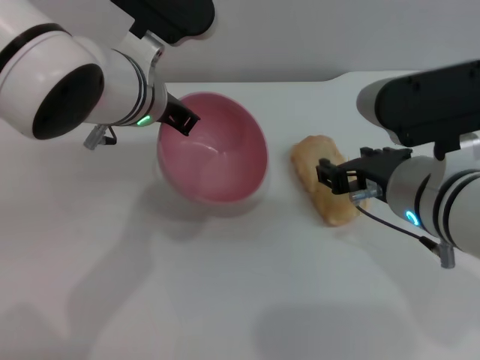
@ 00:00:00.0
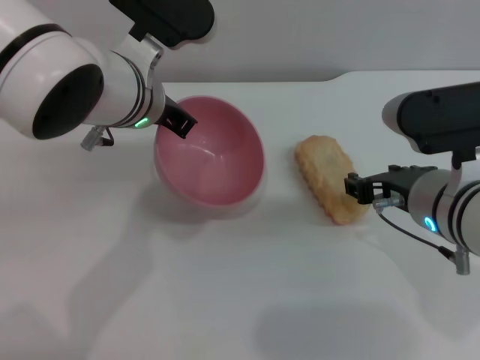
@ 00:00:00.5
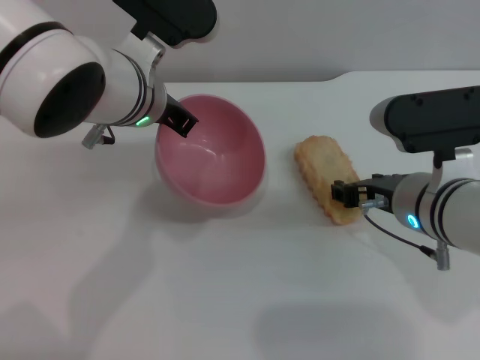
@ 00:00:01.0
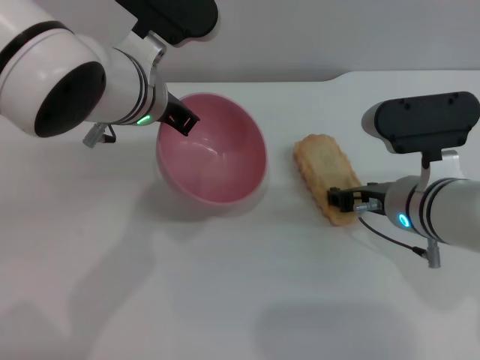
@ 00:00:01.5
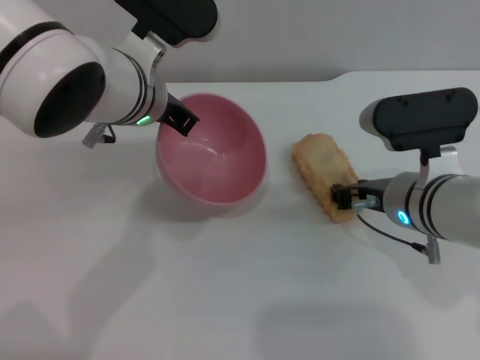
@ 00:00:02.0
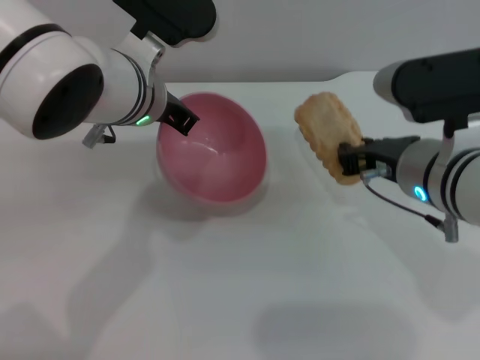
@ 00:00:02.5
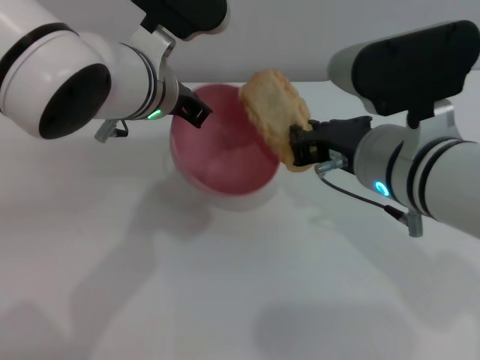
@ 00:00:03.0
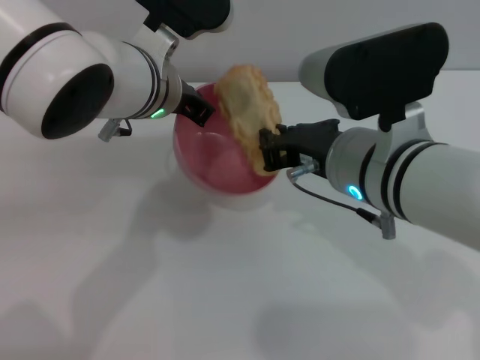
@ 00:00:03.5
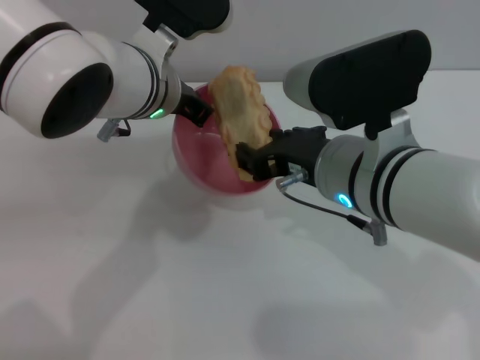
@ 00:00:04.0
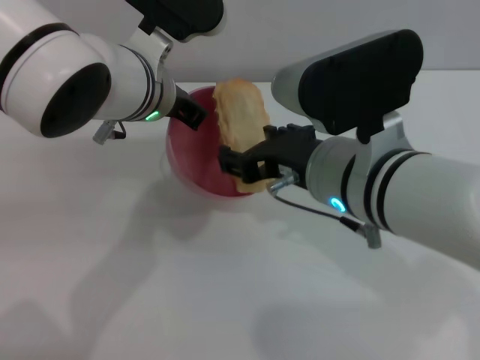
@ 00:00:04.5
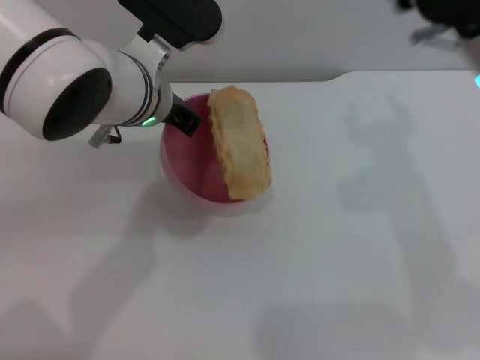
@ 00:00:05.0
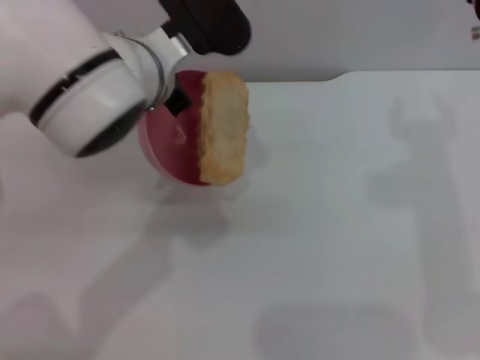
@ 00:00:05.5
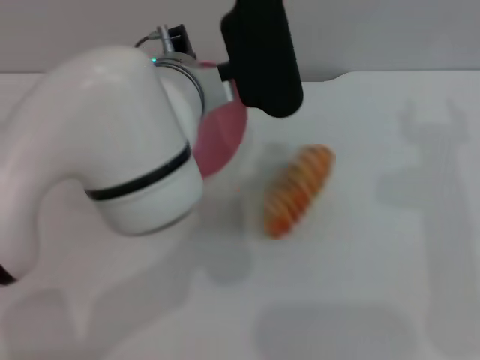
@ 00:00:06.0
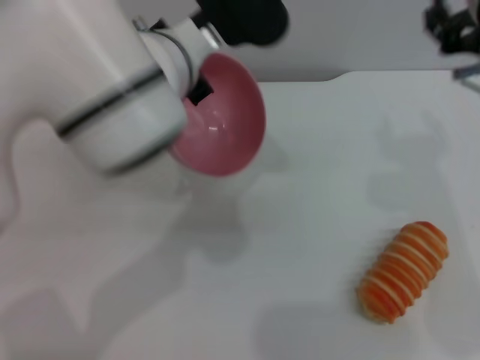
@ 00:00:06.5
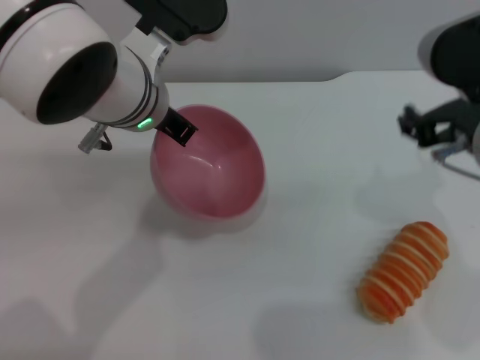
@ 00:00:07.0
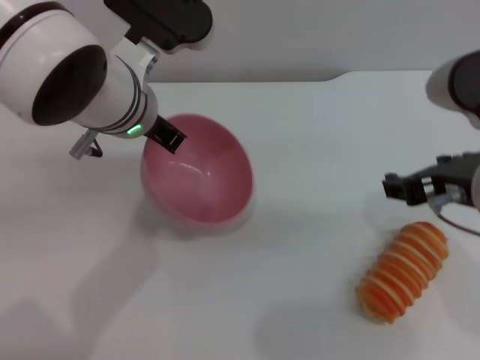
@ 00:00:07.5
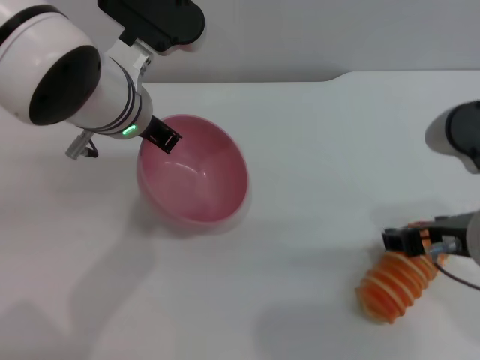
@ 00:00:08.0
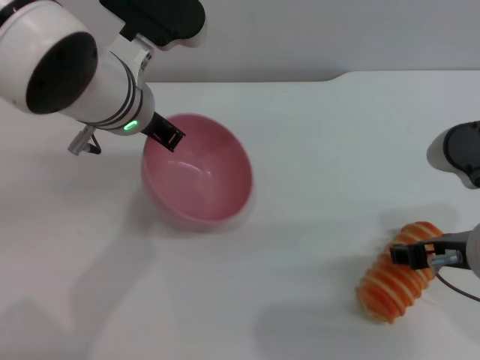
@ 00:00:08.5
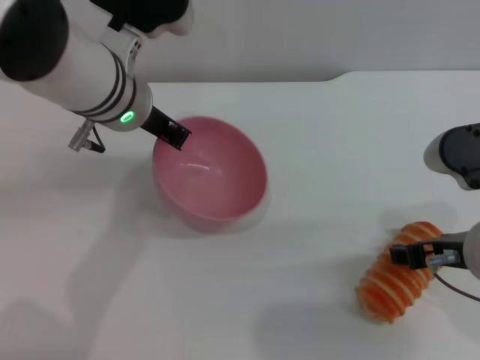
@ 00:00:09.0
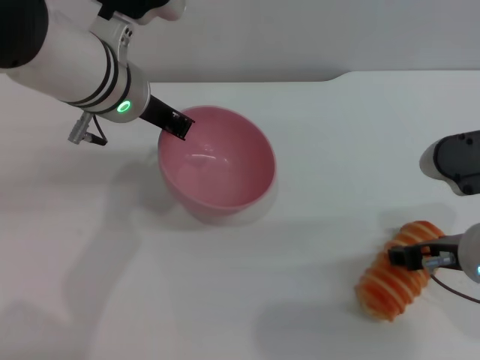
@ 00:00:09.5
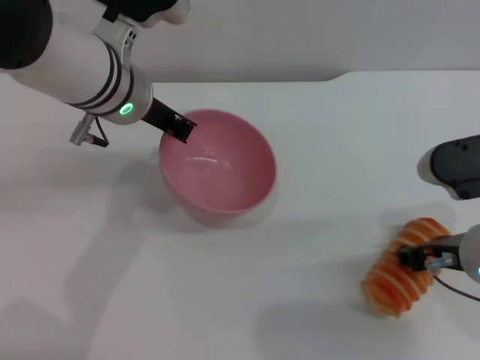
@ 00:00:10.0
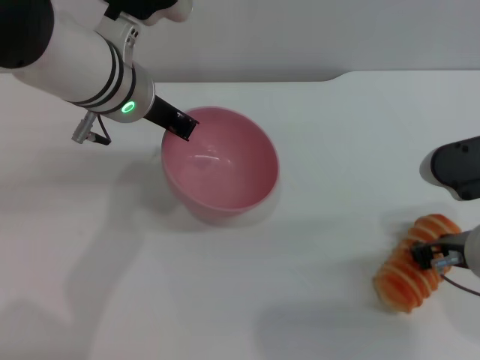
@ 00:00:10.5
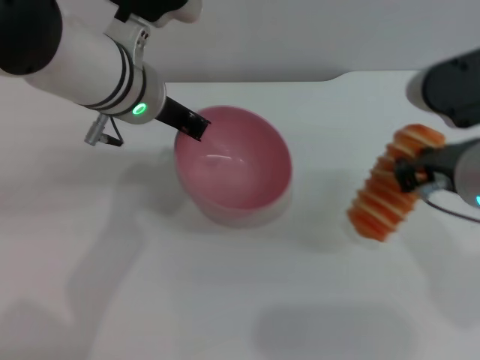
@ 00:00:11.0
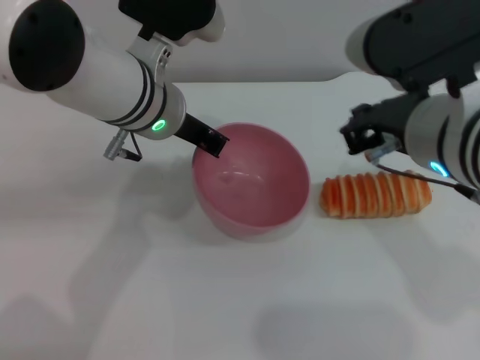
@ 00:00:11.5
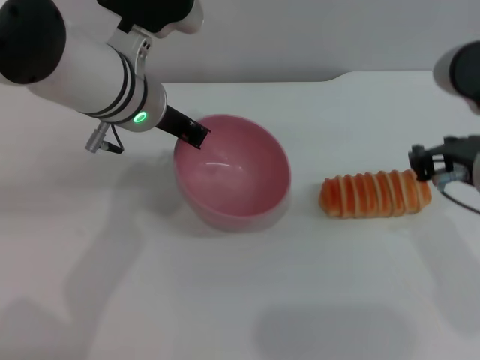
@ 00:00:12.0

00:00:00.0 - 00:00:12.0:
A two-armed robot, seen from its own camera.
Task of the whole recording: put the bread into the pink bowl and pour it out repeatedly.
Step, 00:00:00.0 - 00:00:02.0: Pick up the bread with the right gripper.
Step, 00:00:02.5 - 00:00:04.5: Place the bread into the bowl.
Step, 00:00:05.0 - 00:00:06.0: Pour the bread out of the bowl.
00:00:00.0 - 00:00:02.0: The right gripper moves downward, some 5 cm.
00:00:02.0 - 00:00:04.0: The right gripper shifts about 10 cm upward and to the left.
00:00:04.0 - 00:00:06.0: The right gripper is displaced to the right and upward by some 10 cm, and opens its fingers.
00:00:06.0 - 00:00:08.0: The left gripper travels to the left by some 5 cm; the right gripper travels downward by about 5 cm.
00:00:08.0 - 00:00:10.0: The right gripper travels downward by some 5 cm.
00:00:10.0 - 00:00:12.0: The right gripper is displaced upward by approximately 5 cm, and closes its fingers.

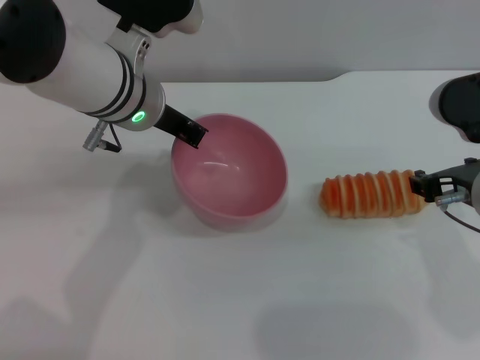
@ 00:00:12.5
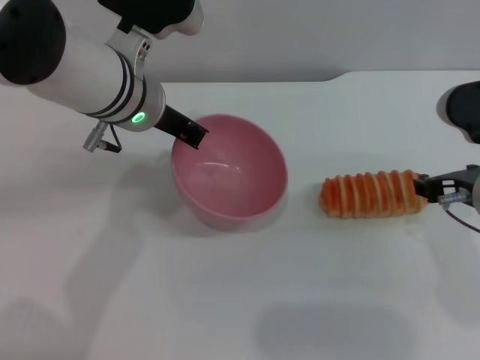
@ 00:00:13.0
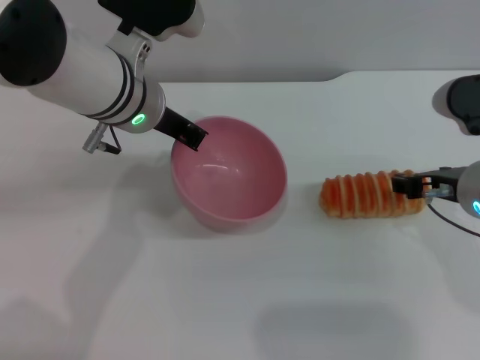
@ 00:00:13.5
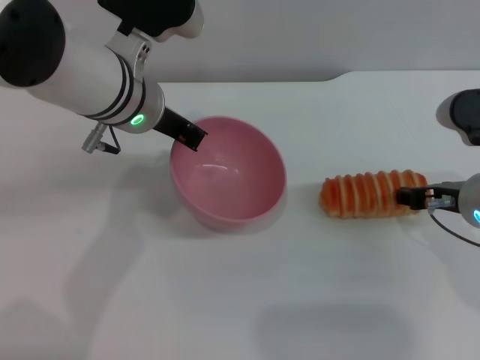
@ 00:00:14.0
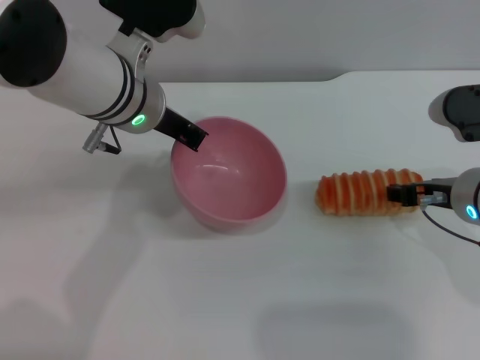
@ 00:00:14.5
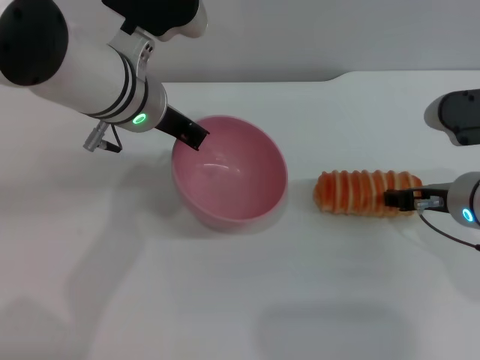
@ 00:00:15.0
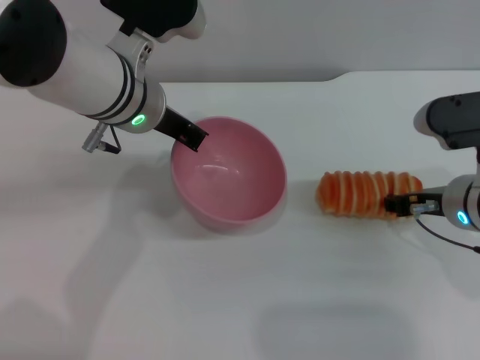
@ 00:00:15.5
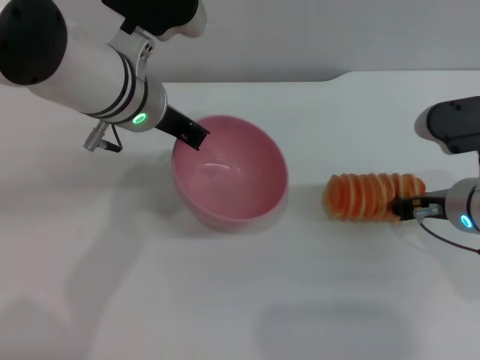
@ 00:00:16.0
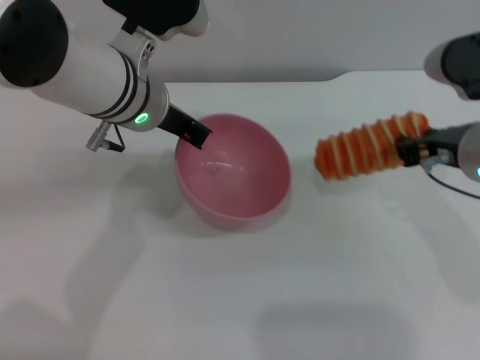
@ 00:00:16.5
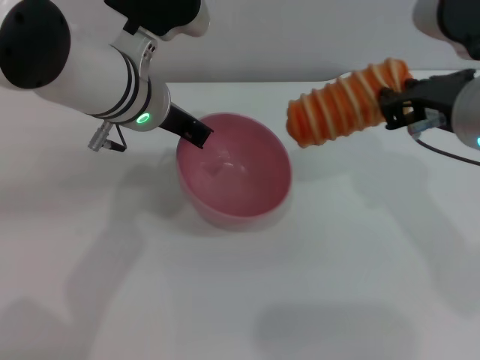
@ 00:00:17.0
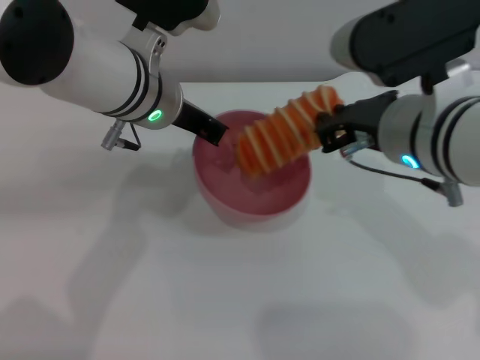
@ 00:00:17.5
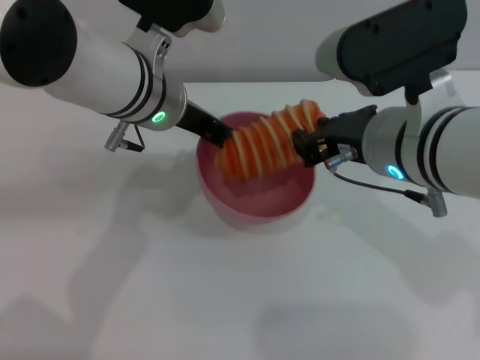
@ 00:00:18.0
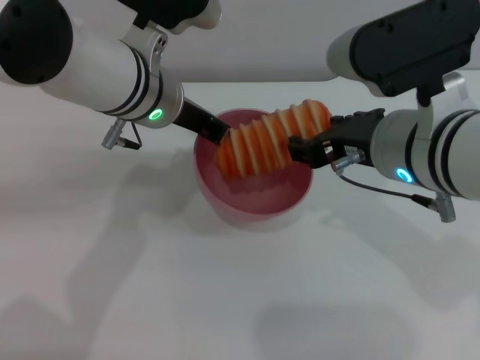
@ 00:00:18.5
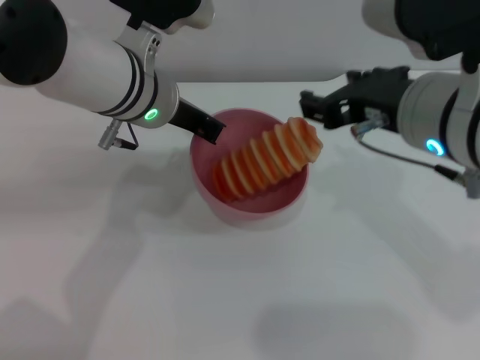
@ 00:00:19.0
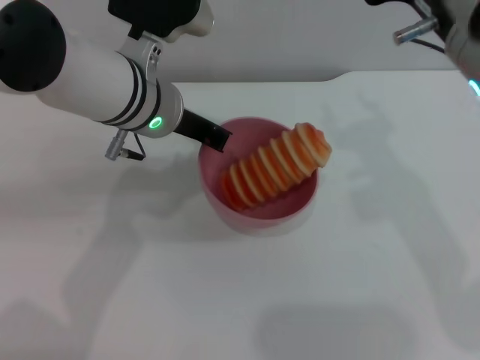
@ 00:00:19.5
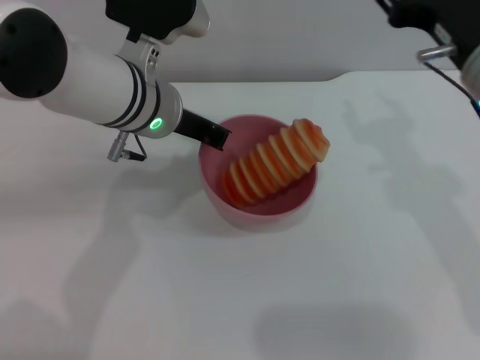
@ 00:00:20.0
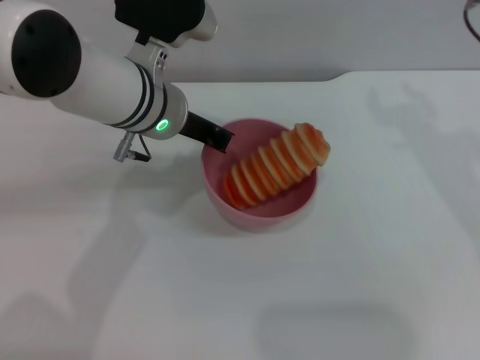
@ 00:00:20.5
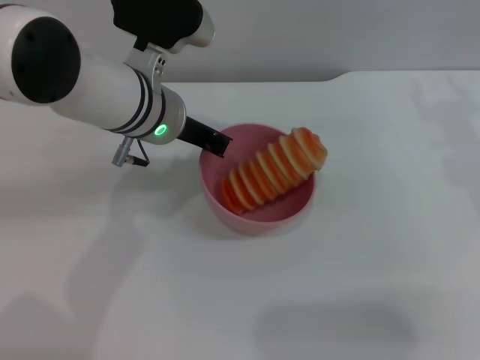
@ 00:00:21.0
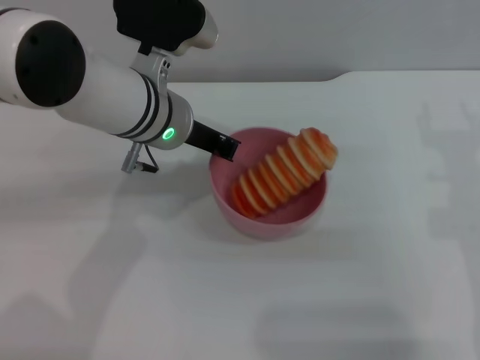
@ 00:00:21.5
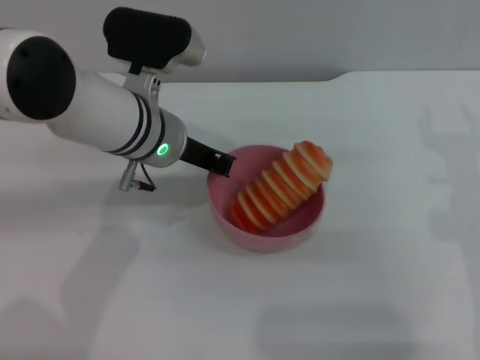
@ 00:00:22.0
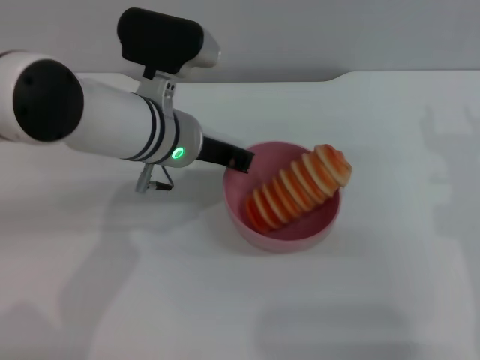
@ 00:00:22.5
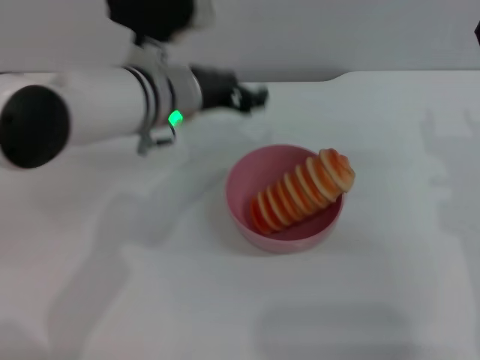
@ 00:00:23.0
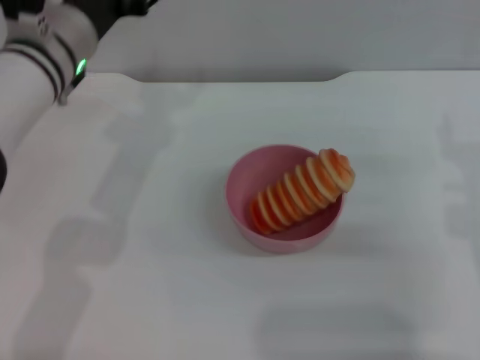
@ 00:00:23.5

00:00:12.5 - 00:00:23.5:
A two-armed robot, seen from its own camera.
Task of the whole recording: put the bread into the pink bowl and pour it out repeatedly.
Step, 00:00:12.5 - 00:00:16.5: Pick up the bread with the right gripper.
Step, 00:00:17.0 - 00:00:18.5: Place the bread into the bowl.
Step, 00:00:19.0 - 00:00:23.0: Place the bowl on the table.
00:00:12.5 - 00:00:14.5: The right gripper shifts roughly 5 cm downward.
00:00:14.5 - 00:00:16.0: The grippers make only small movements.
00:00:16.0 - 00:00:18.0: The right gripper moves upward and to the left, about 15 cm, and closes up.
00:00:18.0 - 00:00:20.0: The right gripper travels to the right by approximately 5 cm, and opens up.
00:00:20.0 - 00:00:21.5: The right gripper is displaced downward and to the right by approximately 10 cm.
00:00:21.5 - 00:00:23.5: The left gripper heads to the left, covering roughly 10 cm, and opens its fingers.

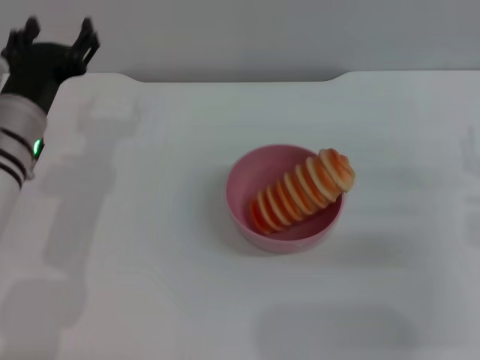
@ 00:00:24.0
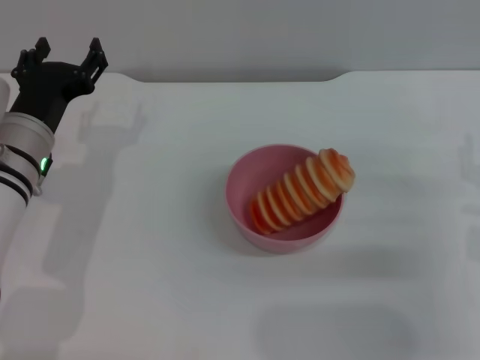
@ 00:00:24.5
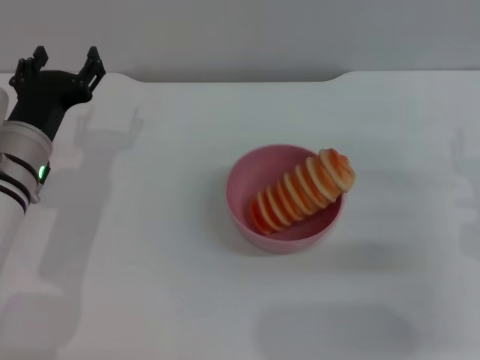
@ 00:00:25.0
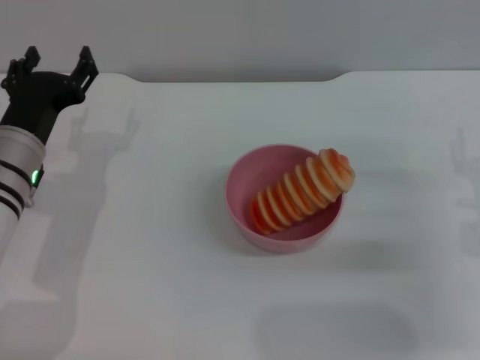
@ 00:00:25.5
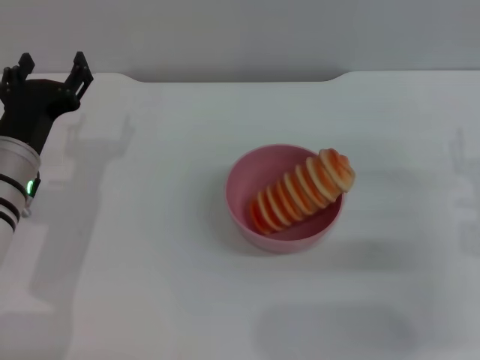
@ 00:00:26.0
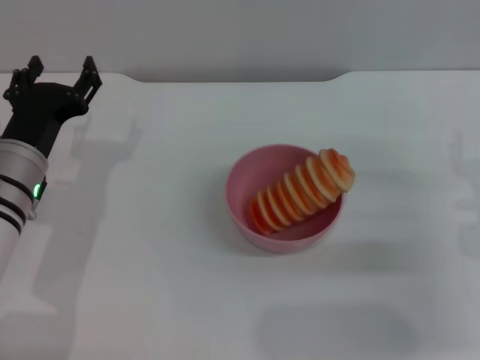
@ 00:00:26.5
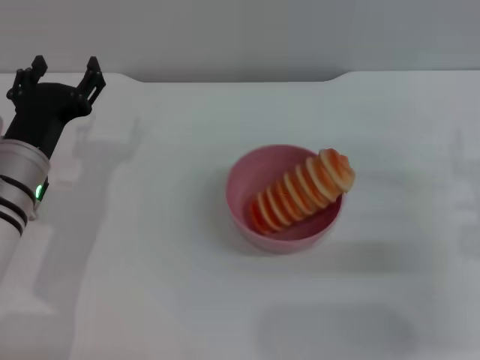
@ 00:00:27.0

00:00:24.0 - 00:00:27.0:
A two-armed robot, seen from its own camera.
Task of the whole recording: put the bread into the pink bowl and pour it out repeatedly.
00:00:24.0 - 00:00:27.0: The grippers make only small movements.
